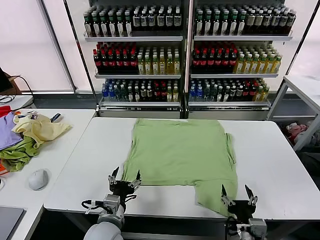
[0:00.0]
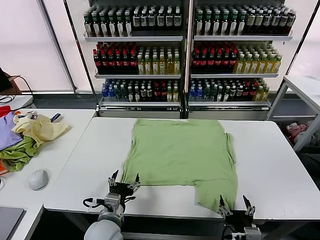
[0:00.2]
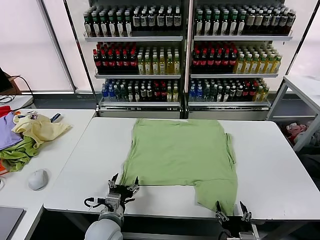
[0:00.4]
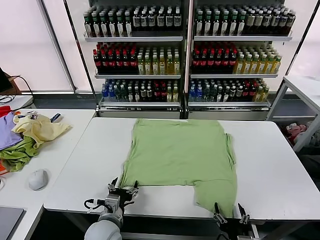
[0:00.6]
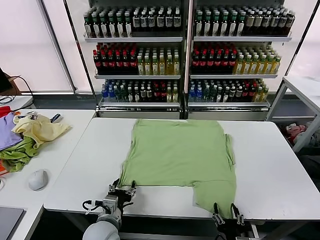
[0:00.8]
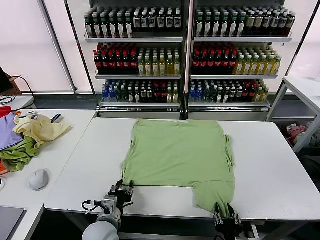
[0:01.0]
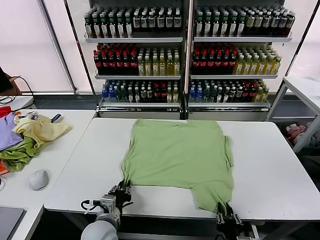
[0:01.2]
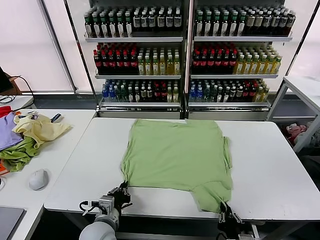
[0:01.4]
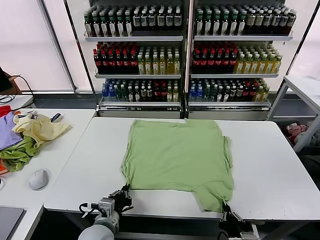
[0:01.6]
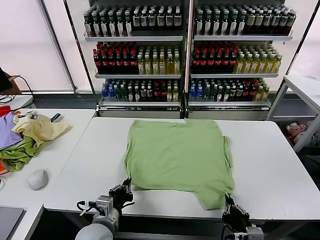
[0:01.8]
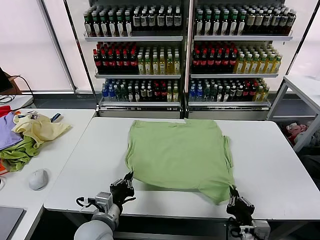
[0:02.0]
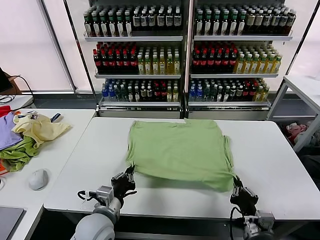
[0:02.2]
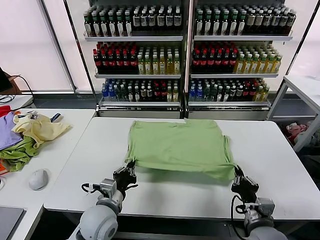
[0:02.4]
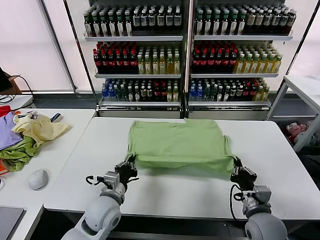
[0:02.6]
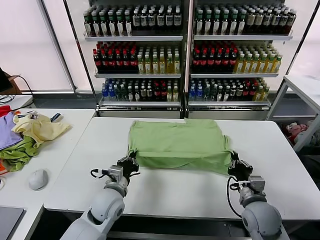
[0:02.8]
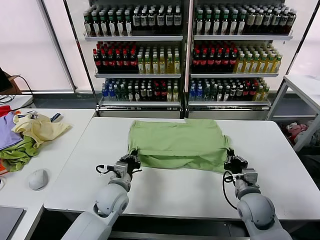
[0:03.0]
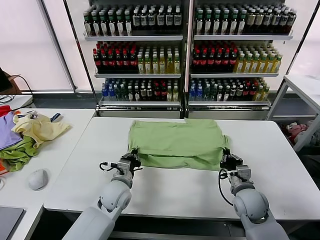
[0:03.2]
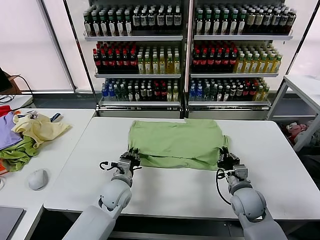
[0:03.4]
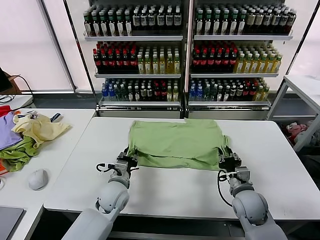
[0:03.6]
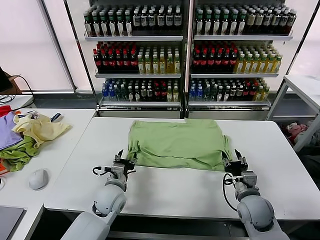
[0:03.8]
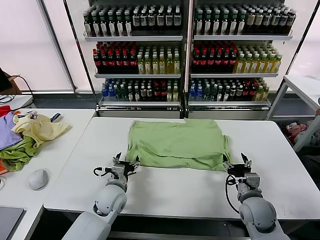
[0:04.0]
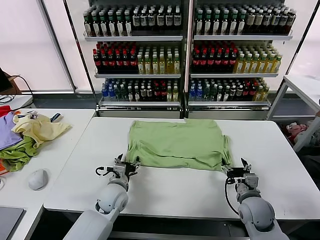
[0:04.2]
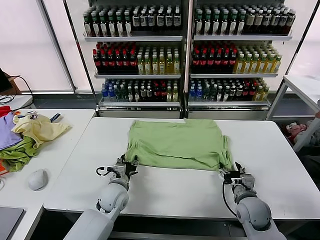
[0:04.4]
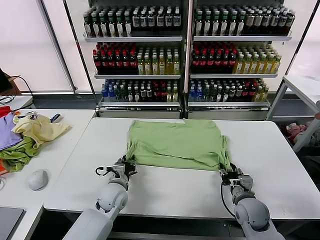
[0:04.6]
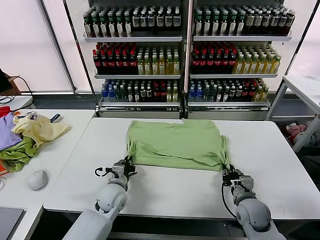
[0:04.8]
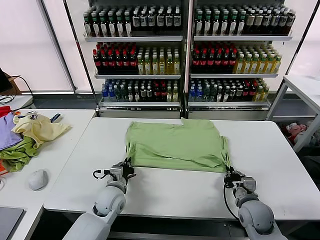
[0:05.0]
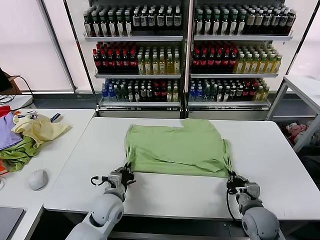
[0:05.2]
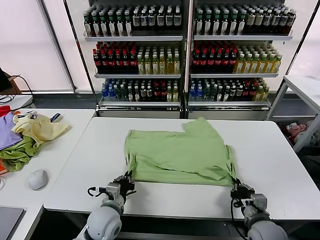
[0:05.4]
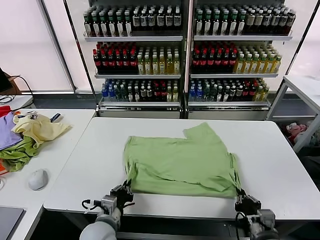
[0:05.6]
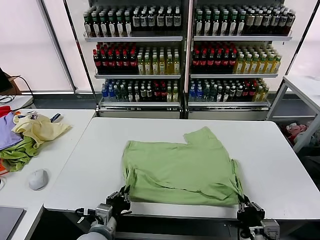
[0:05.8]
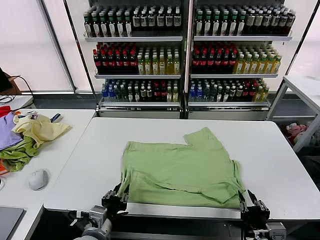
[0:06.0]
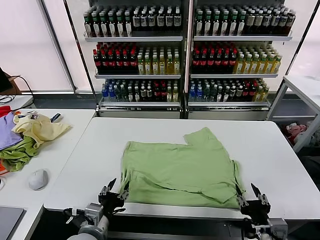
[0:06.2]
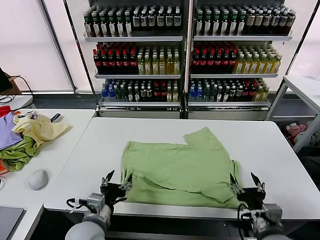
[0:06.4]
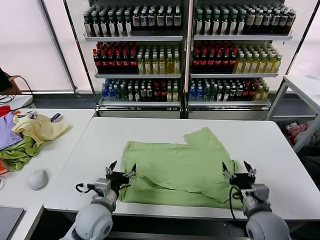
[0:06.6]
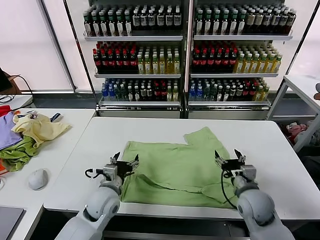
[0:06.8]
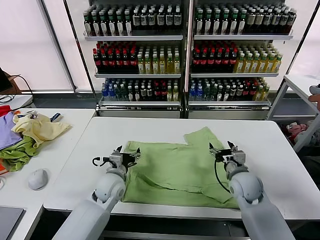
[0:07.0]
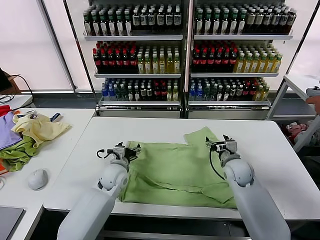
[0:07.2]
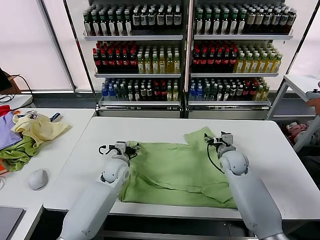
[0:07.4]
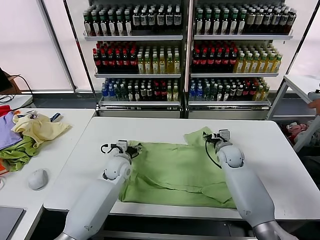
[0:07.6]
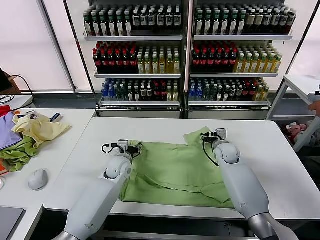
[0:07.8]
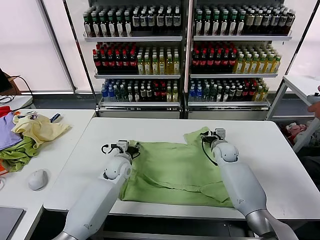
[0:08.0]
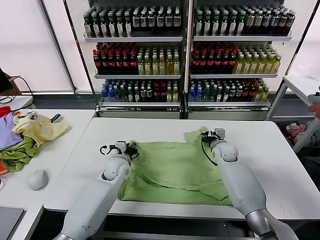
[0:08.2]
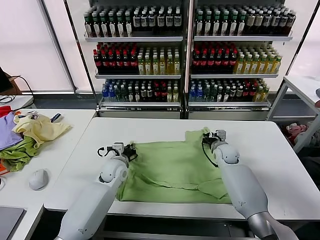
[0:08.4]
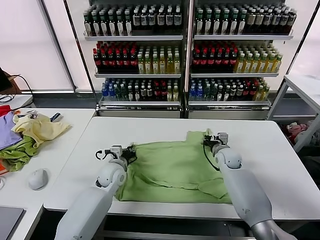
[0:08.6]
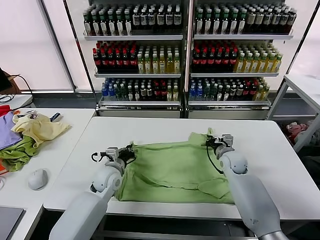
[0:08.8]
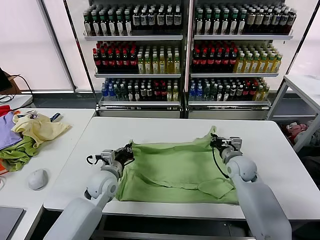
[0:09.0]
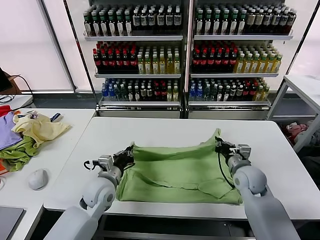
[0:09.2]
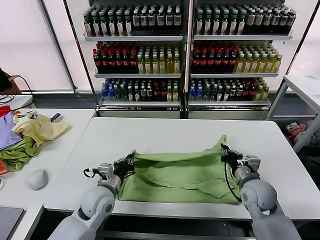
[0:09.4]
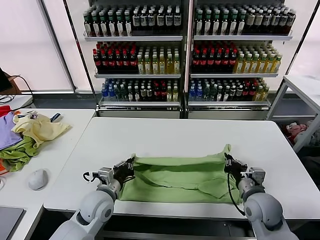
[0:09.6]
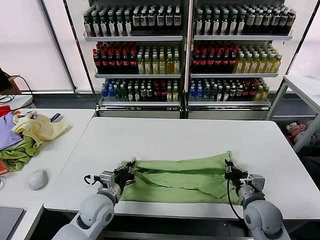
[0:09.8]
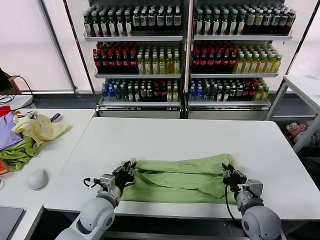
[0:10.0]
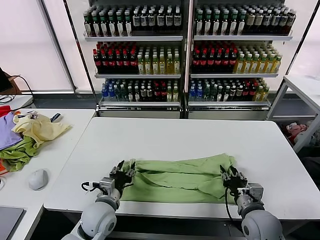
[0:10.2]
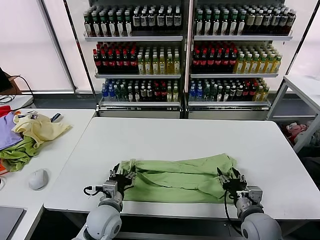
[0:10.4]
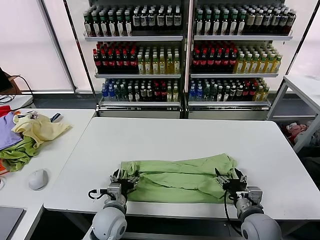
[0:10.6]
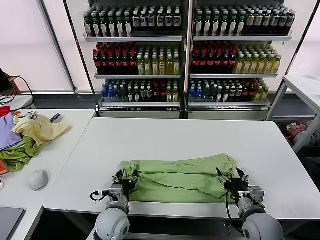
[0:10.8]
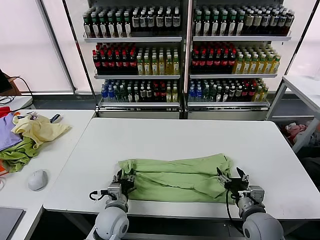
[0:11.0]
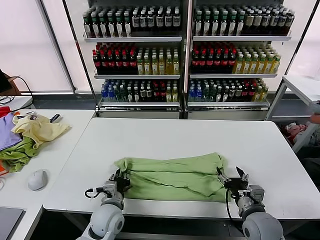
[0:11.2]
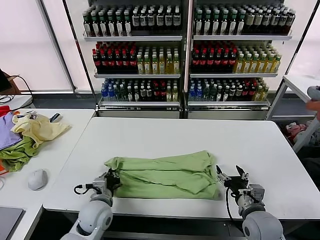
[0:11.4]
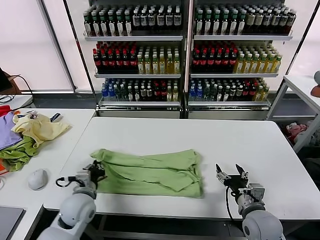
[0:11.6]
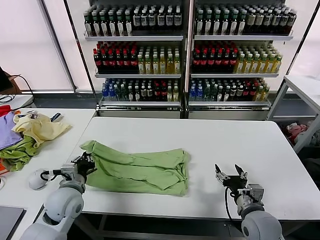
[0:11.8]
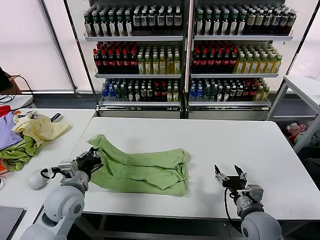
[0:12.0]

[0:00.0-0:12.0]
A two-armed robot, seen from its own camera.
Task of the whole recording: fold and organize the clothes.
Step, 0.0 to 1.6 s: use both grippers simultaneously to clamp the lower edge of the clothing fabric.
Step, 1.8 to 3.6 s: use both grippers to drag the lower edge of the fabric forward and fold it over the upper edge.
Step, 3.8 to 6.0 s: Drag the clothes downward with both gripper.
Step, 6.2 to 8.4 s: use both grippers simultaneously to clamp the upper edge of the clothing fabric.
Step, 8.8 to 10.4 s: use both grippers to drag the upper edge of the fabric backward and fold it over the lower edge.
Step, 10.6 to 11.4 s: use the left gripper to clamp the left edge of the fabric.
1.6 to 3.0 s: The two grippers go approximately 15 cm forward.
3.0 to 4.4 s: The left gripper opens up. The right gripper opens its fingers.
4.4 to 6.0 s: The left gripper moves backward, roughly 20 cm, and closes and opens again; the right gripper heads backward and upward, covering about 20 cm, and closes, then reopens.
6.0 to 7.6 s: The two grippers go roughly 35 cm forward. The left gripper opens its fingers. The right gripper opens its fingers.
7.6 to 9.0 s: The grippers both shift backward by about 10 cm. The right gripper closes up. Meanwhile the left gripper closes.
9.0 to 10.4 s: The right gripper heads backward, covering roughly 15 cm, and opens its fingers. The left gripper shifts roughly 10 cm backward, and opens its fingers.
10.4 to 12.0 s: The left gripper shifts some 15 cm to the left and upward, and closes its fingers.

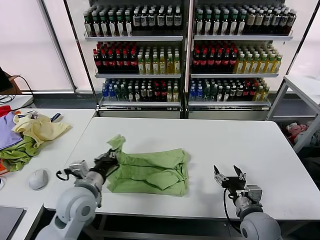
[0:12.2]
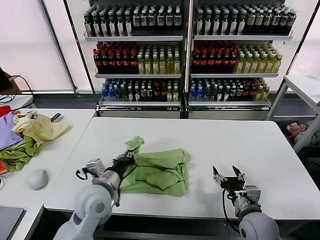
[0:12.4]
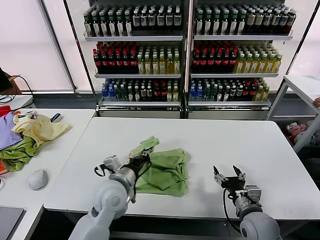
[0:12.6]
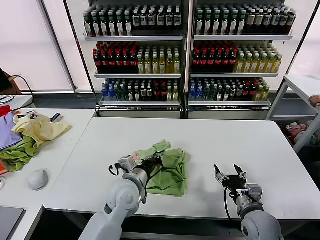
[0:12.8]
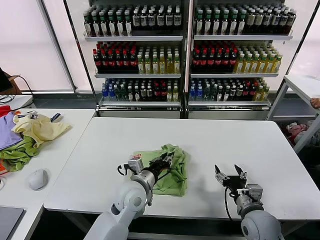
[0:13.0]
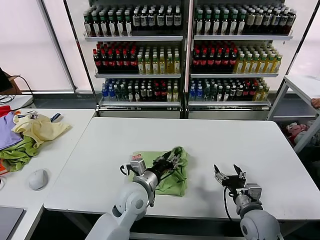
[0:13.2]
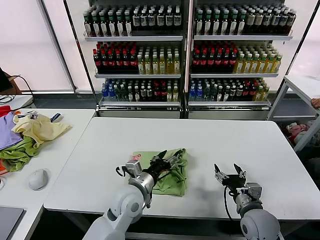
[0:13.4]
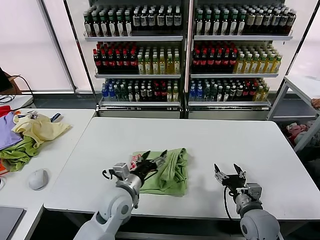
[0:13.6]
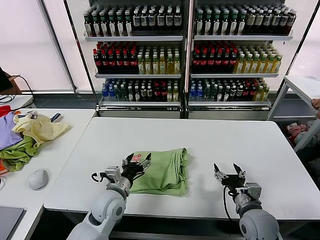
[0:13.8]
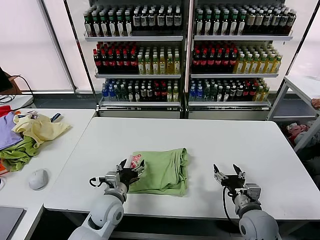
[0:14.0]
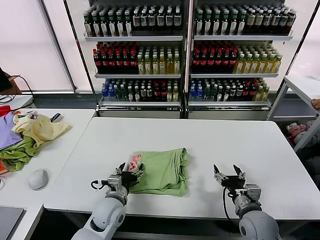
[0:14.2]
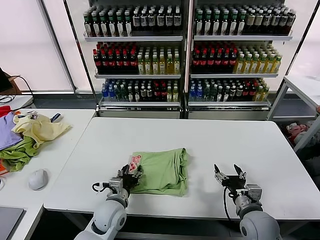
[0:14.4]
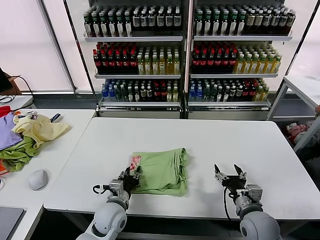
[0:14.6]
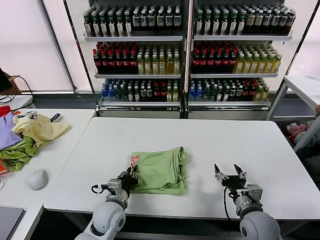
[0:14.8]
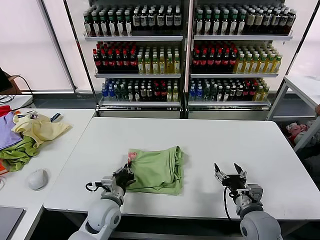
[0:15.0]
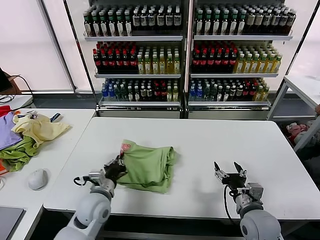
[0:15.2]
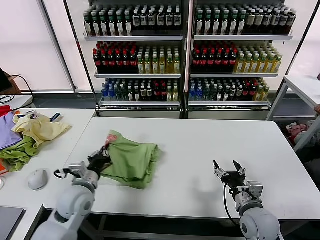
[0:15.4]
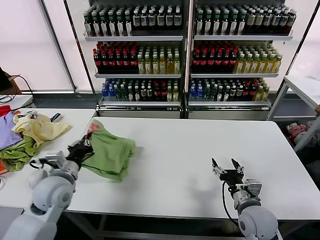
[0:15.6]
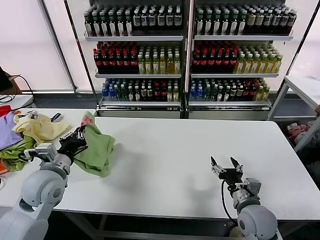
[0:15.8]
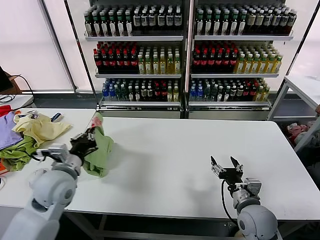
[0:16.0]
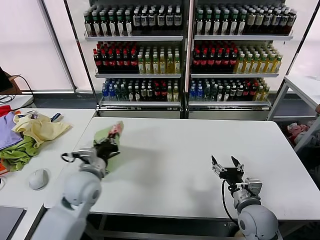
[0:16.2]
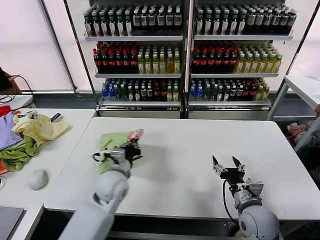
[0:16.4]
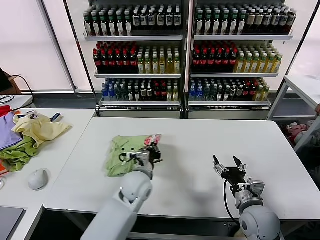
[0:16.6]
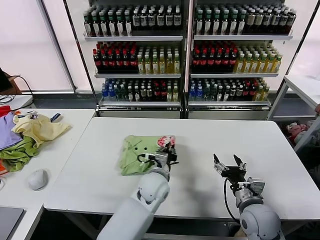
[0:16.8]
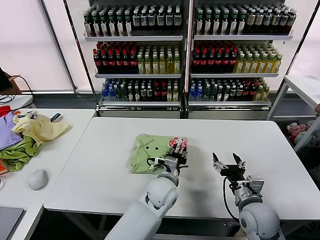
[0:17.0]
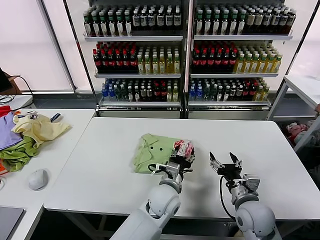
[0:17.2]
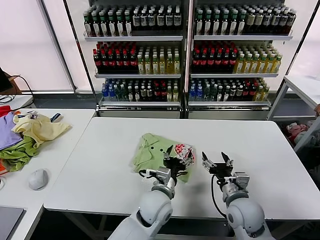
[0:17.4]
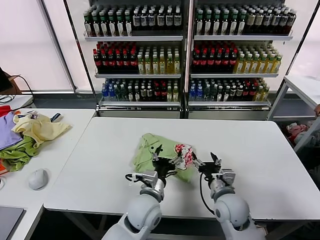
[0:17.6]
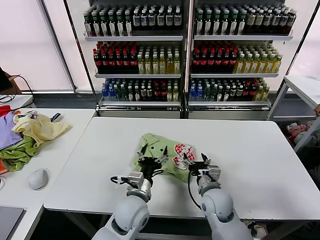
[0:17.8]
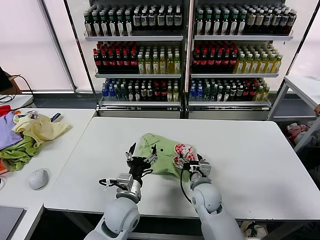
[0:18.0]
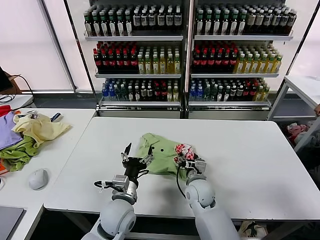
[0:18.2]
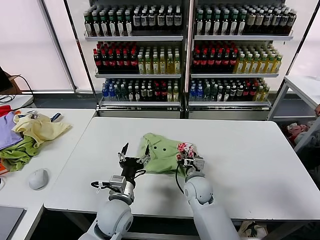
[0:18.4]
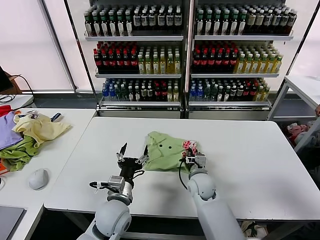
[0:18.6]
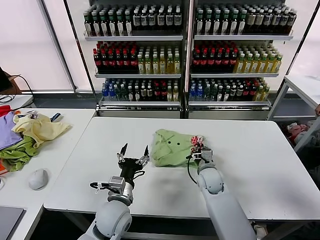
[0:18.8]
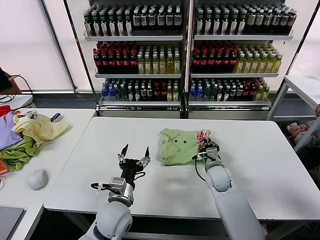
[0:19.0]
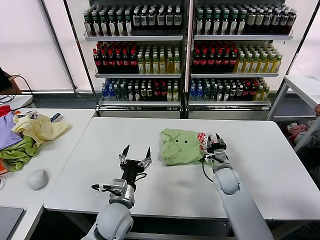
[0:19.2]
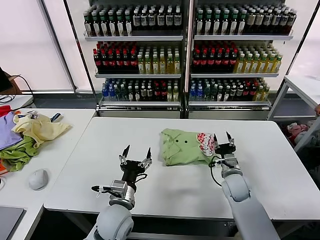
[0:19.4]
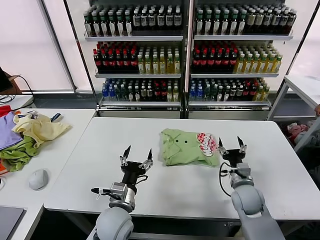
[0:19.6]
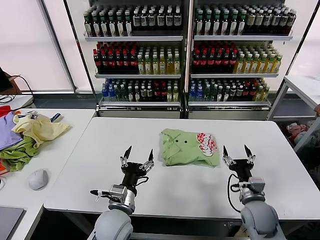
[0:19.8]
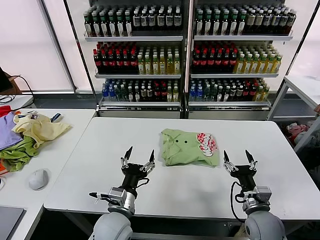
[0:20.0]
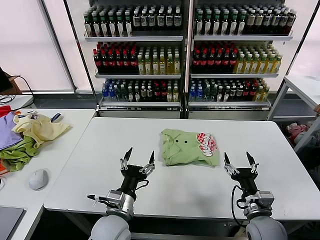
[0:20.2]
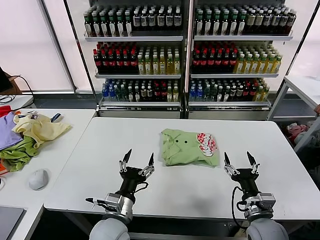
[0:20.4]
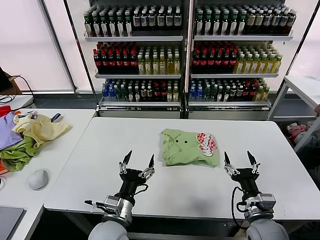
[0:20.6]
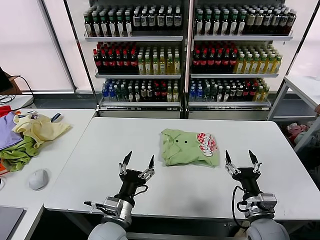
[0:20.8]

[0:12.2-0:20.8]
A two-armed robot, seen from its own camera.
Task of the whole recording: fold and organize the clothes.
Step, 12.2 to 13.2 s: use the left gripper to drag the left edge of the fabric to the left and folds it over the right edge.
Step, 13.6 to 17.2 s: Flip the folded clothes over with left gripper.
Step, 17.4 to 19.2 s: Drag the clothes to the center of the table.
12.2 to 13.6 s: The left gripper is displaced to the right by approximately 10 cm, and opens its fingers.
13.6 to 15.0 s: The left gripper travels downward by approximately 5 cm, and closes its fingers.
15.0 to 16.6 s: The left gripper moves to the right, forward and upward, roughly 15 cm.
16.6 to 18.0 s: The left gripper is displaced backward by roughly 10 cm, travels to the right and back again, about 10 cm each way, and opens. The right gripper travels to the left and forward by approximately 15 cm.
18.0 to 19.4 s: The right gripper heads to the right and forward, covering approximately 10 cm, and closes its fingers.
19.4 to 20.8 s: The right gripper is displaced backward by roughly 20 cm, and opens up. The left gripper shifts about 5 cm backward.

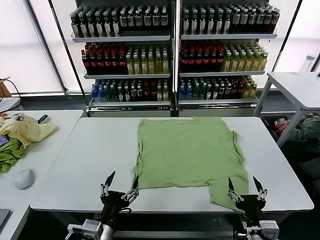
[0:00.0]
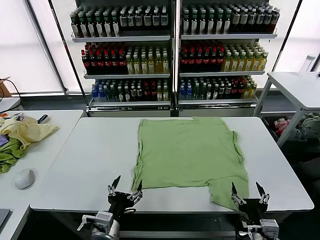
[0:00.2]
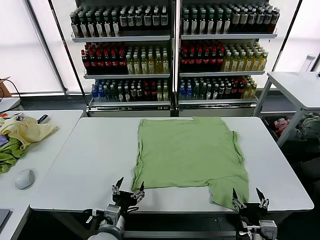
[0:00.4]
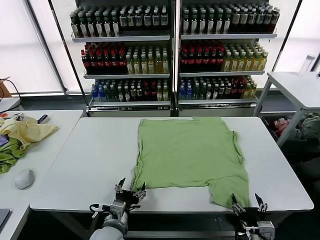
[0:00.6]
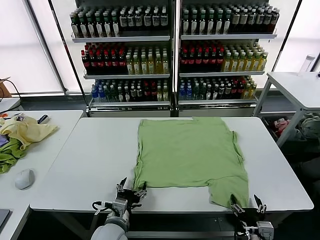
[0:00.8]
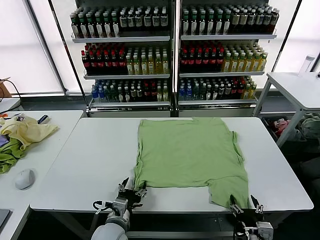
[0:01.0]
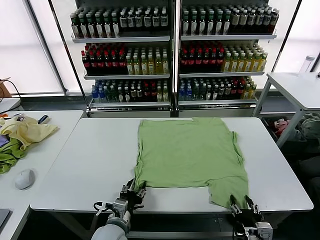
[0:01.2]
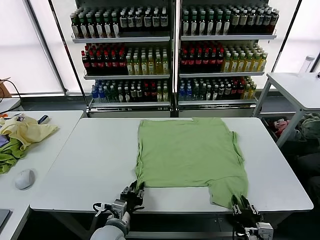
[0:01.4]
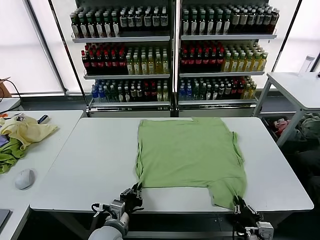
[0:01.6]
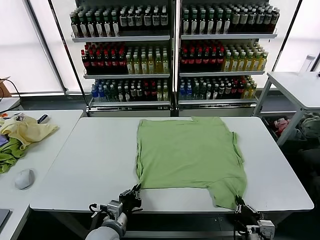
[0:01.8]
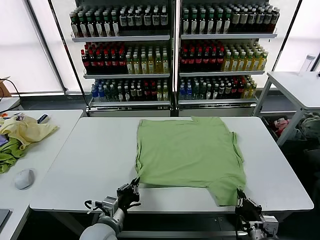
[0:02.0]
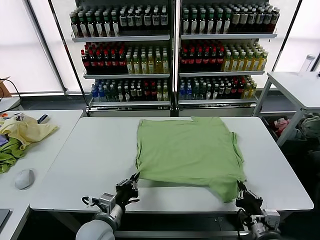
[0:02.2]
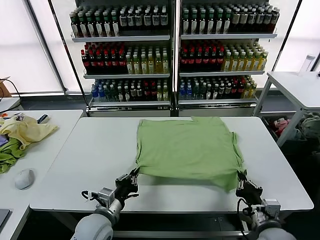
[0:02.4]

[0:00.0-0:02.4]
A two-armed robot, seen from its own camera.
Task of the whole recording: fold and organize the clothes.
Step, 0.0 to 1.6 s: use both grippers simultaneously to clamp the lower edge of the clothing fabric.
1.2 to 2.4 s: The left gripper ends up some 5 cm from where it was, and closes up. The right gripper heads forward and upward, covering approximately 10 cm, and closes.
